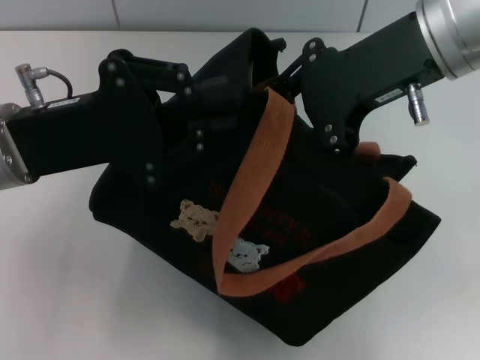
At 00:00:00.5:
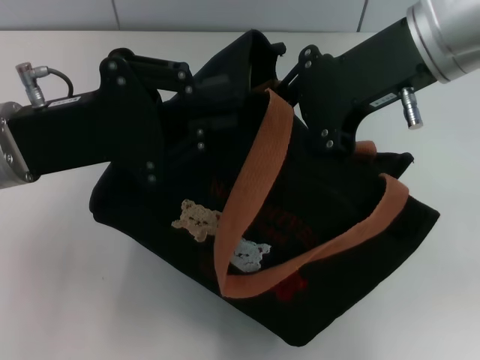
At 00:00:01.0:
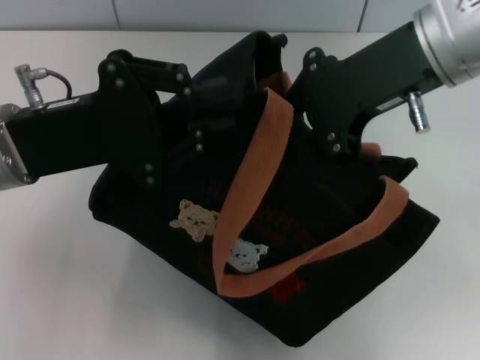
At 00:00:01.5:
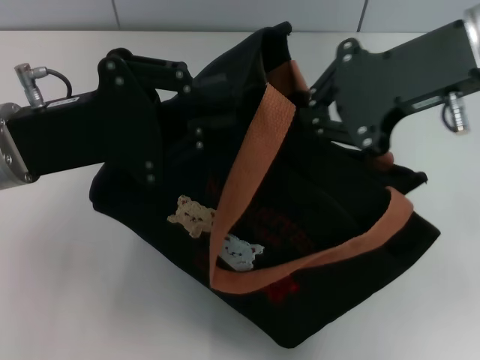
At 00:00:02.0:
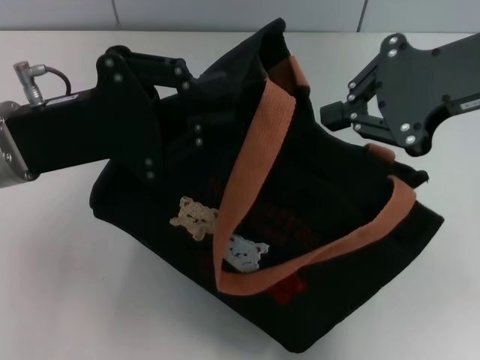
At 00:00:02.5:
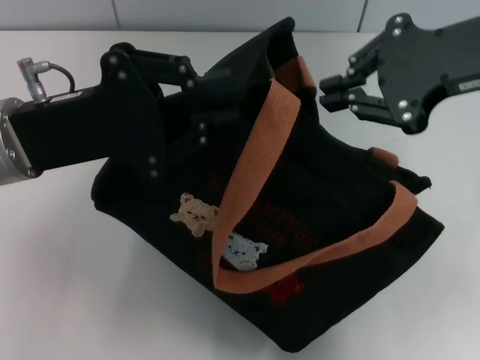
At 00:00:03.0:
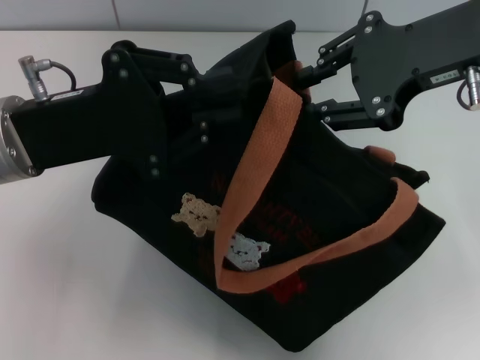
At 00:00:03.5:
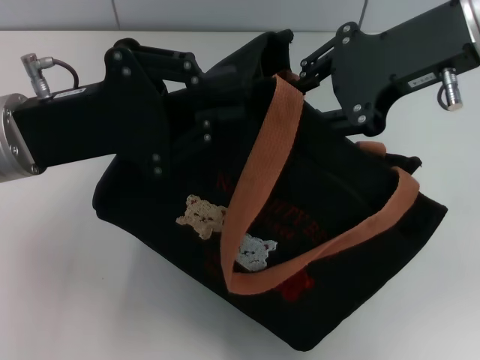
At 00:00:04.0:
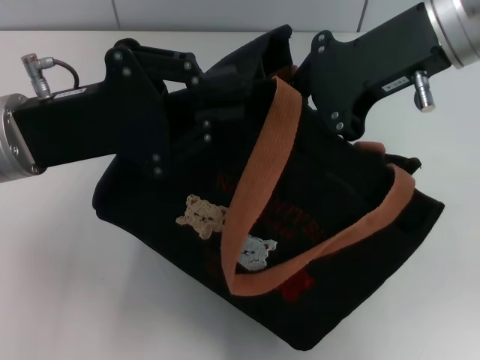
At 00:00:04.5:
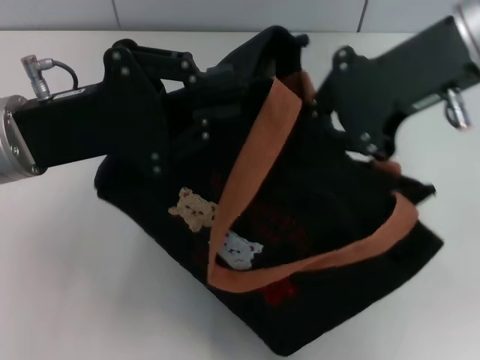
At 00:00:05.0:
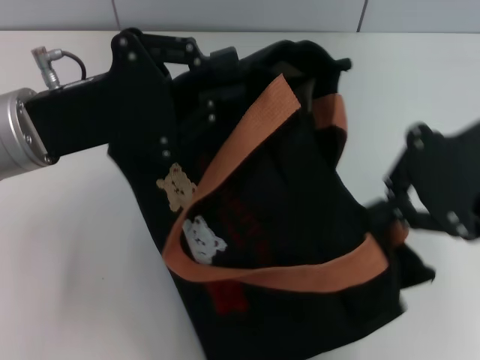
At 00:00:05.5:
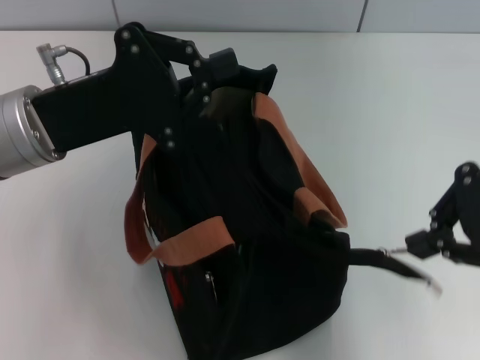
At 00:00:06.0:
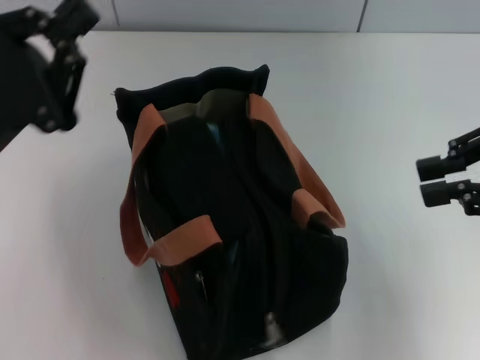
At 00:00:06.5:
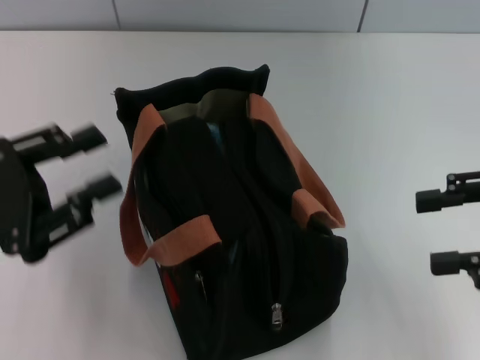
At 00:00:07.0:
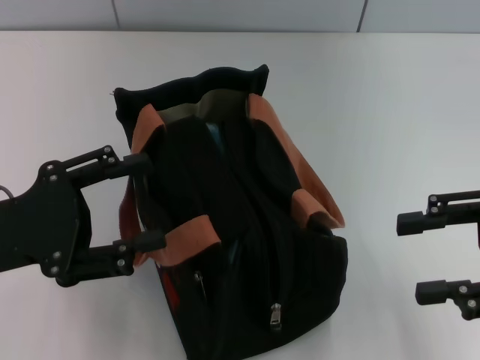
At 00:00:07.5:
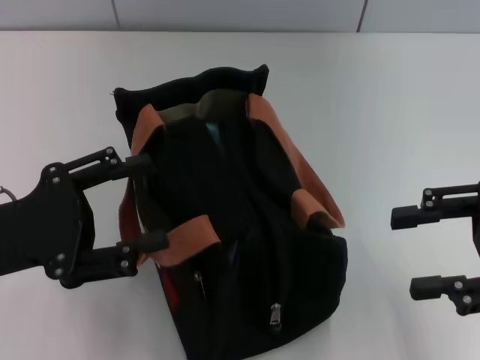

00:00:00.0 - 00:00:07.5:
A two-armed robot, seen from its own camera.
00:00:00.0 - 00:00:02.0: The right gripper shifts about 5 cm to the right.
00:00:02.0 - 00:00:04.0: The right gripper shifts approximately 5 cm to the left.
00:00:04.0 - 00:00:05.5: The right gripper goes about 15 cm to the right and backward.
00:00:05.5 - 00:00:07.5: The left gripper travels backward and to the left by approximately 10 cm, and opens up. Meanwhile the right gripper moves downward, about 5 cm, and opens up.
